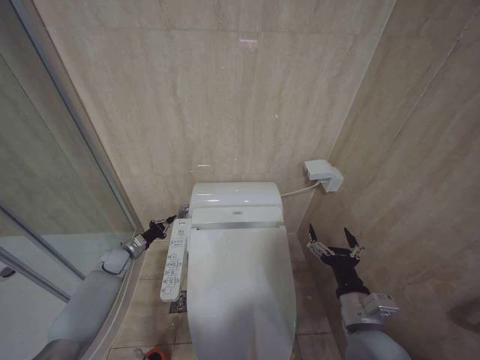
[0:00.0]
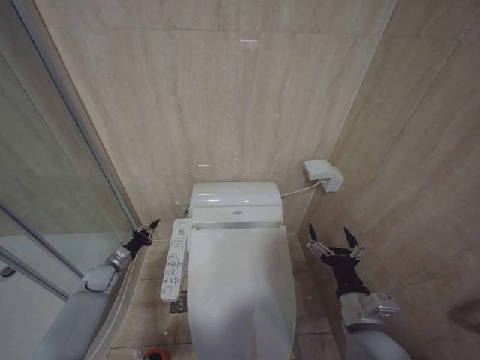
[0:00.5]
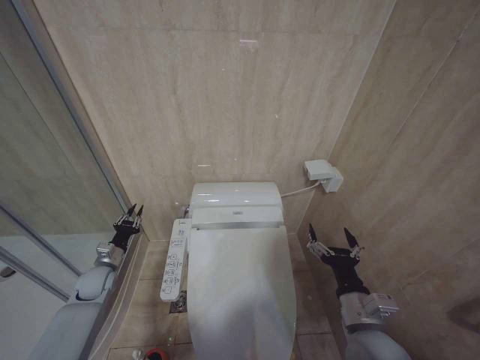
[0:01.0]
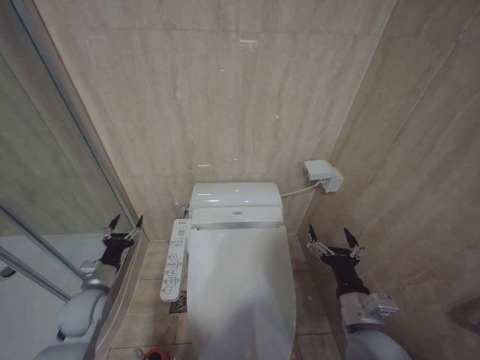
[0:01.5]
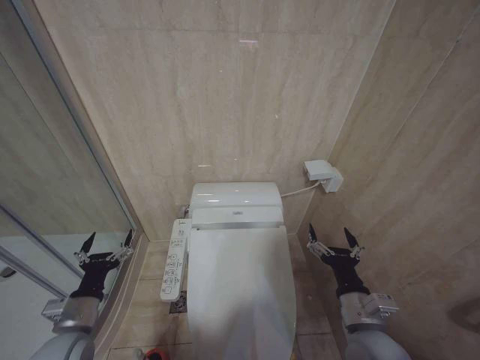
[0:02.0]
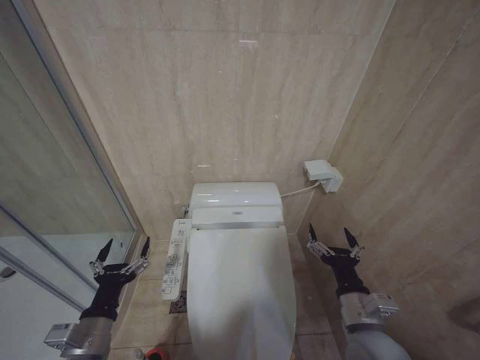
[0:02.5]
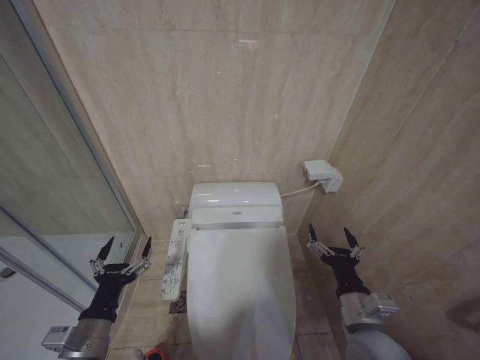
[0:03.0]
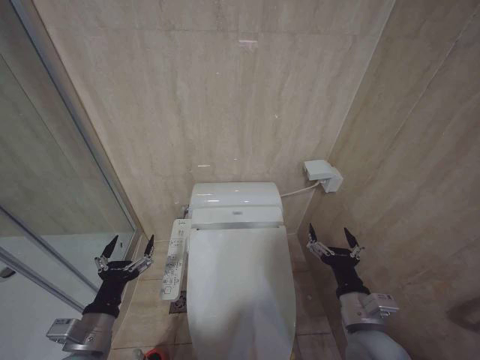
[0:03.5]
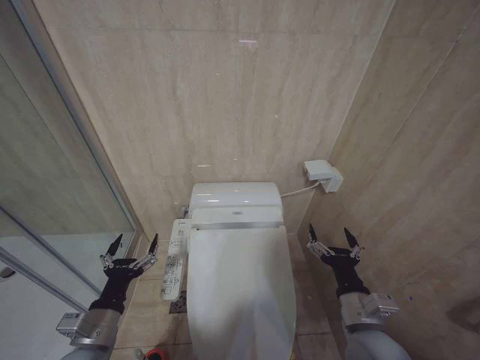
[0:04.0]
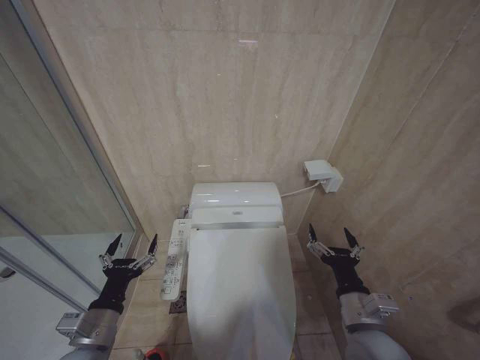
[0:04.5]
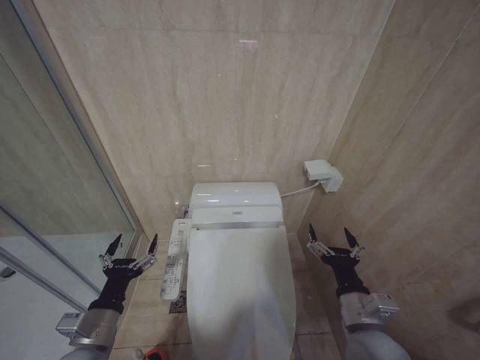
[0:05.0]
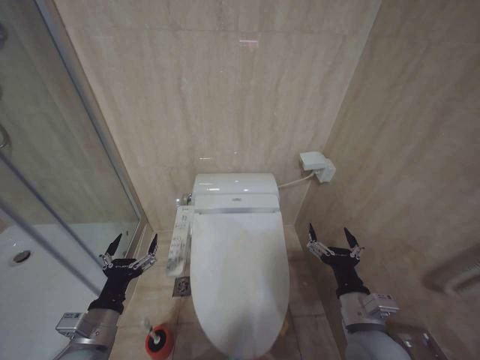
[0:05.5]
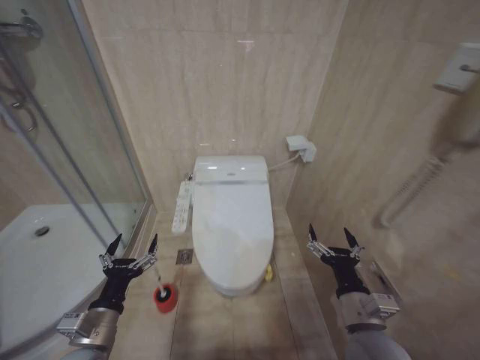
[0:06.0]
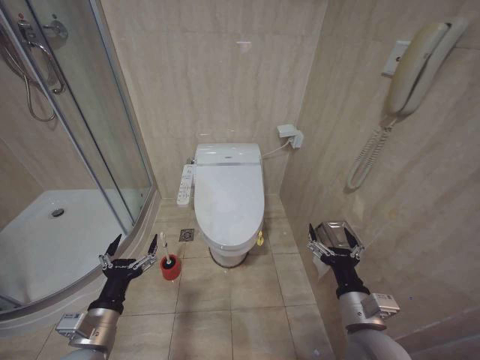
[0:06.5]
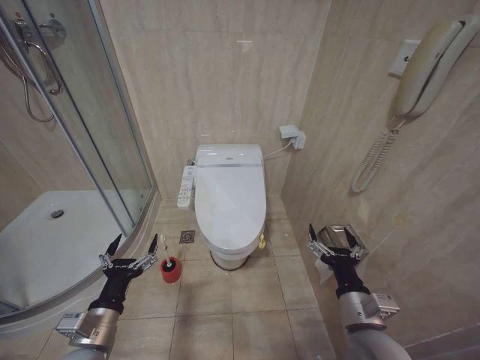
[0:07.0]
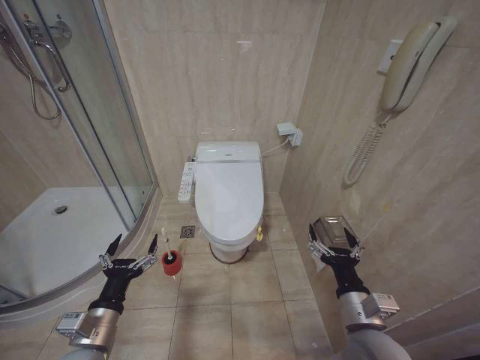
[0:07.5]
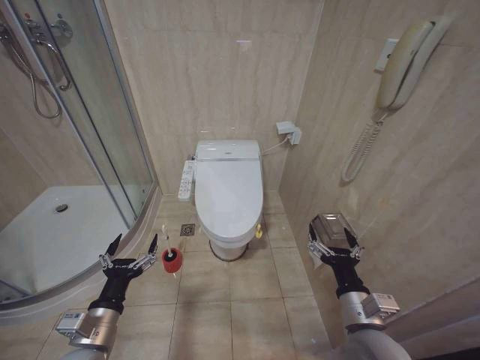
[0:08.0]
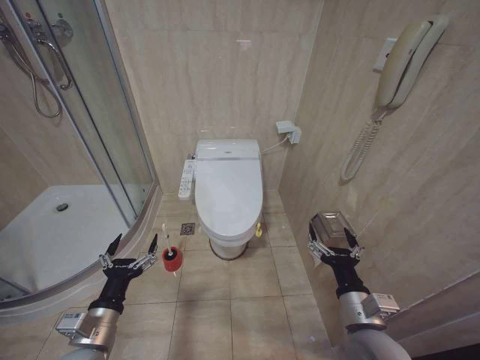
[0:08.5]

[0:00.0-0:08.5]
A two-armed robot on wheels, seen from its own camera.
Task of the whole recording: Open the toilet lid, clean the toilet bowl with a toilet brush, close the toilet lid, and flush.
0:00.0 to 0:02.0: The left gripper goes some 25 cm backward, and opens.
0:02.0 to 0:04.0: The left gripper heads to the right, covering about 5 cm.
0:06.5 to 0:08.5: The two grippers keep their place.
